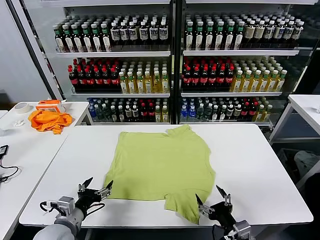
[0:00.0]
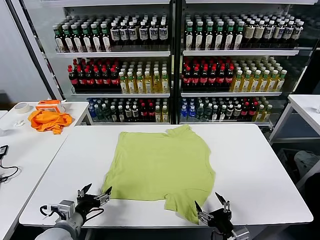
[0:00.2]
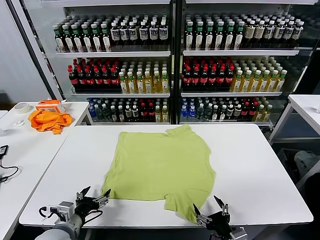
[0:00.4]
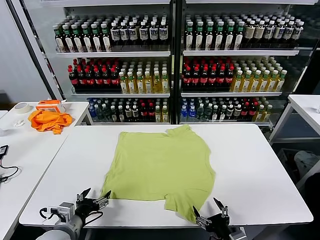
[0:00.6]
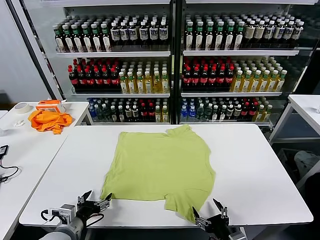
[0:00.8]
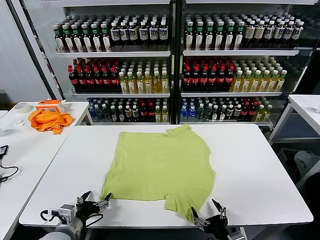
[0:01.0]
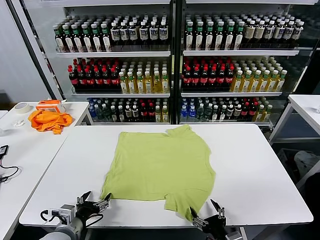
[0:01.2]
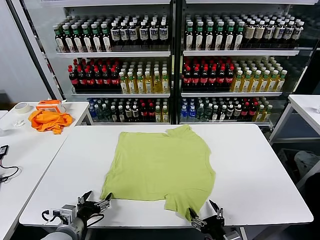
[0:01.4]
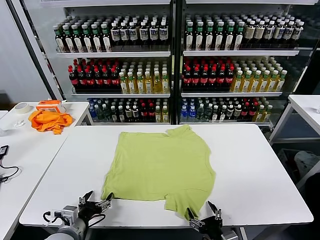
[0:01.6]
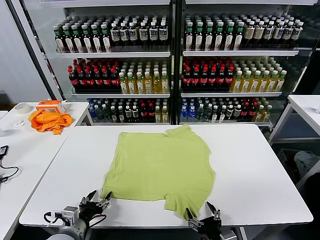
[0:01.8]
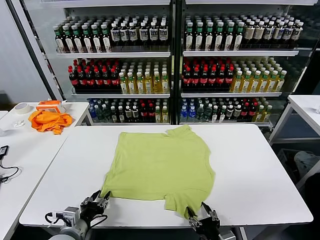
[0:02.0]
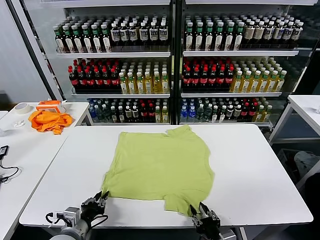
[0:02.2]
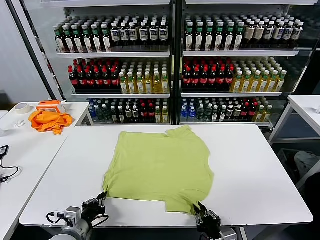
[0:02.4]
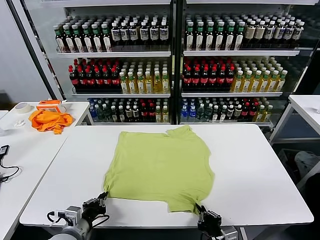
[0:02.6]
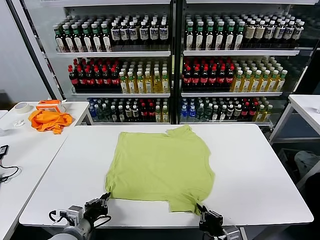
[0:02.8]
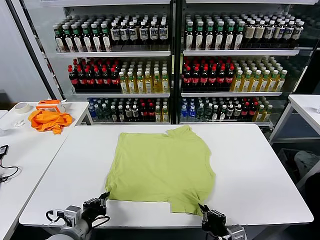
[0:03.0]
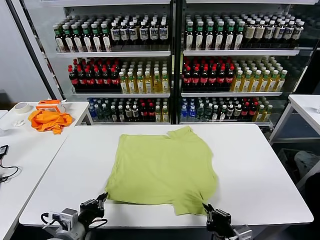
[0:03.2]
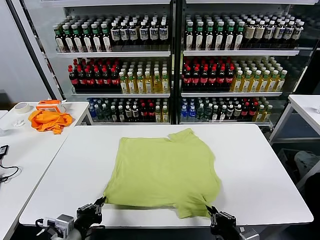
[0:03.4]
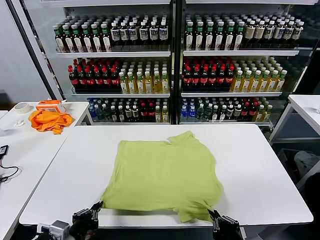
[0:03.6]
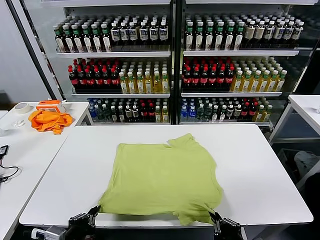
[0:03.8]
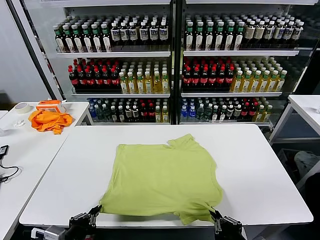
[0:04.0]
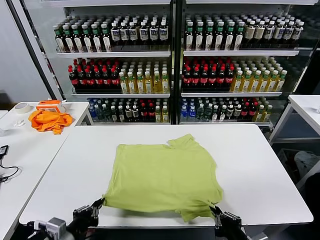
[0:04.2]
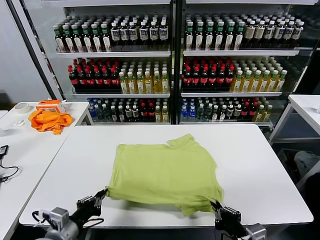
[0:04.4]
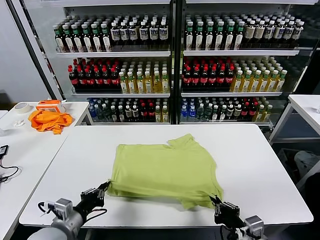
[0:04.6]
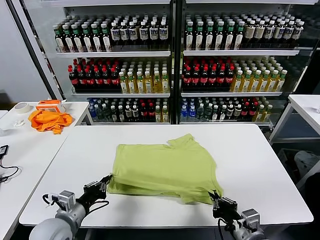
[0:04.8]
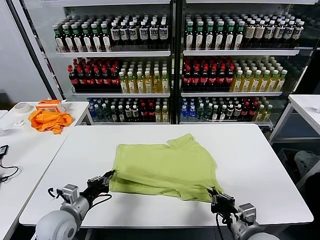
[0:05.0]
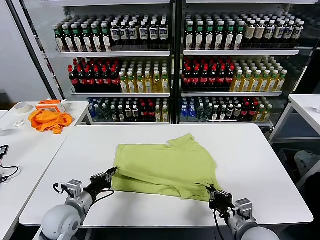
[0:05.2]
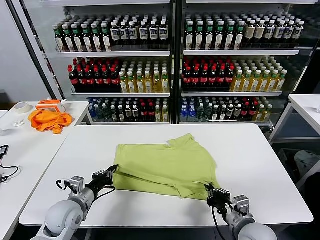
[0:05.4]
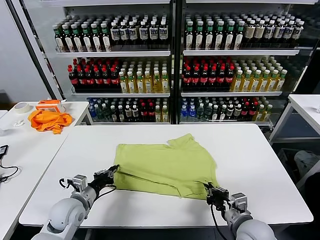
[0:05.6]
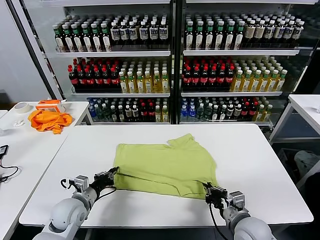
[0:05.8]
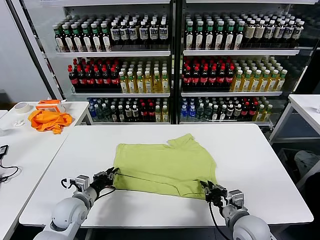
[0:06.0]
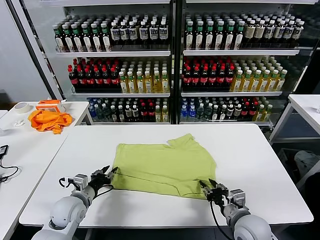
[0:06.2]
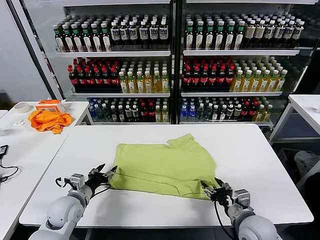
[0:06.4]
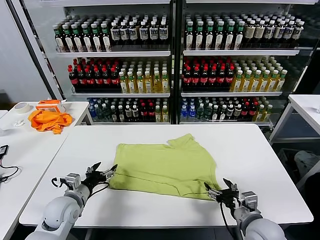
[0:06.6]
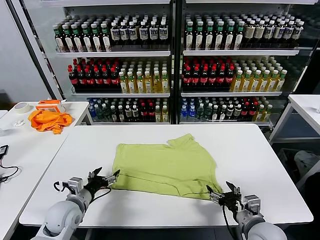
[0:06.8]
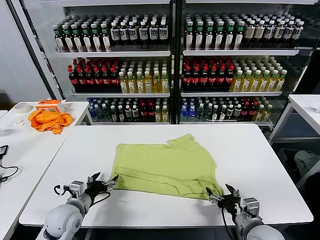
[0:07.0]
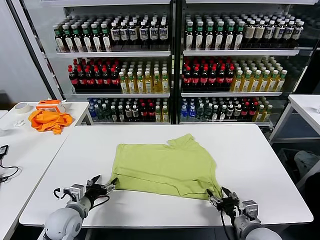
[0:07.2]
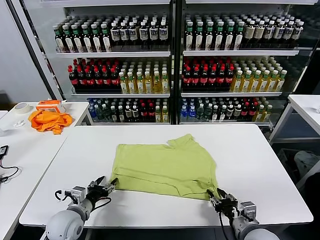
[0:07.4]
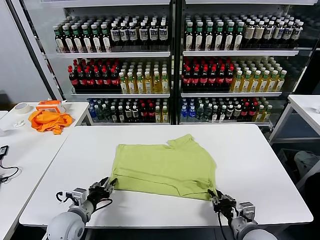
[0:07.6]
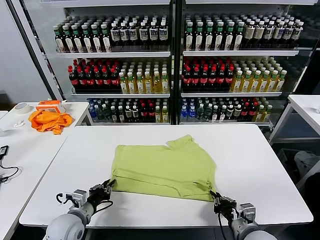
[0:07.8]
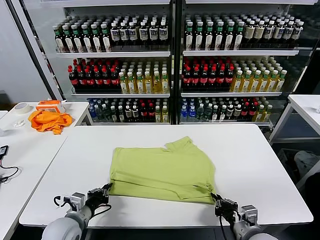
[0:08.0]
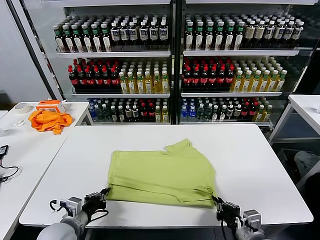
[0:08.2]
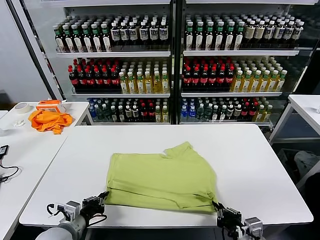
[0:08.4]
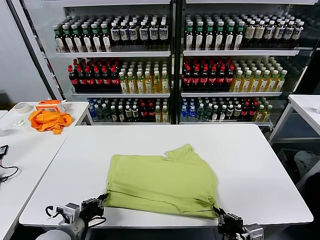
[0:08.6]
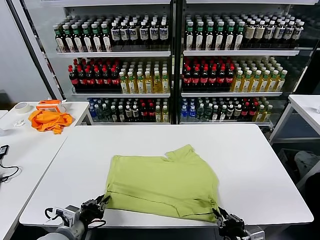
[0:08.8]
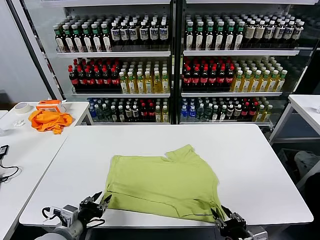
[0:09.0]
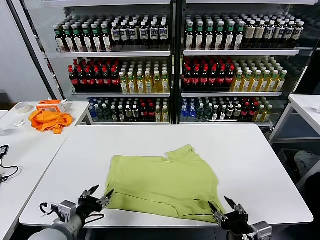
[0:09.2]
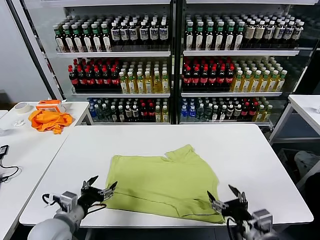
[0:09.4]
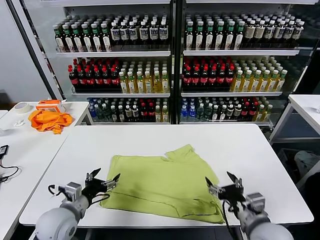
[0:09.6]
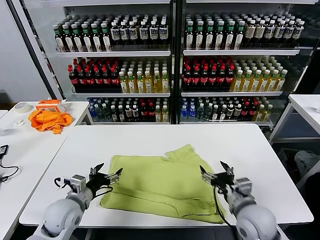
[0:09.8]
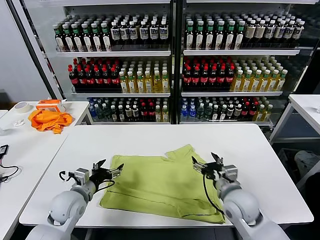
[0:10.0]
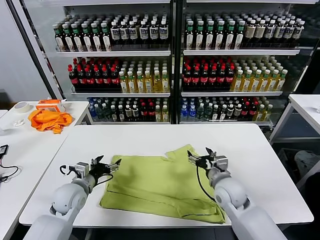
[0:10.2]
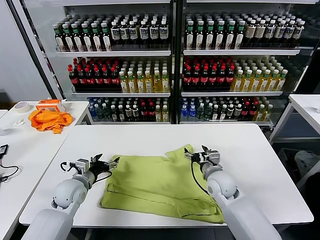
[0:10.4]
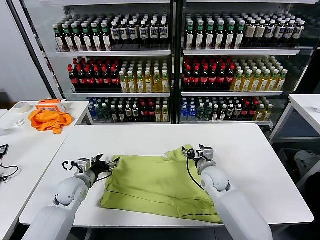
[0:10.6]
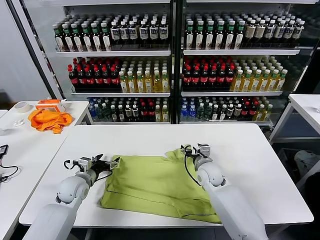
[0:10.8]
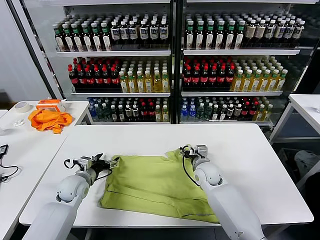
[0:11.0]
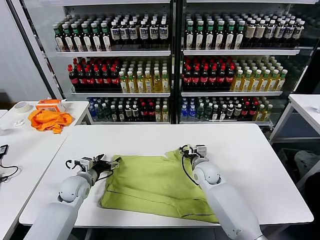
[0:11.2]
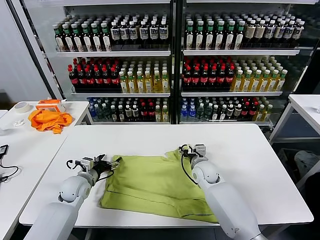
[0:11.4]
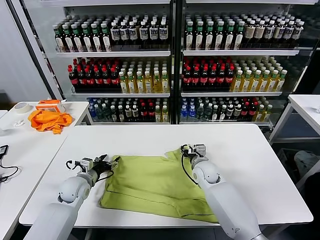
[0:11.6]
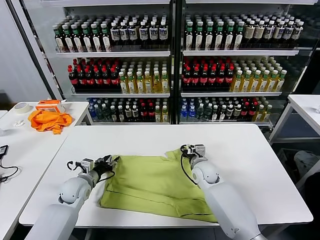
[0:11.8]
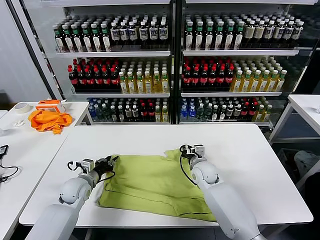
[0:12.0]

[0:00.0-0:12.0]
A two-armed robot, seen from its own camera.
Task of the whole recording: fold and organize the clothes.
Step, 0:00.0 to 0:02.6: use both grippers simultaneously to clamp the lower edge of the clothing fabric.
Step, 0:02.8 to 0:06.2: use both grippers to drag the lower edge of the fabric forward and fold it over the upper edge.
Step, 0:06.6 to 0:09.0: Drag the clothes downward with both gripper.
0:01.6 to 0:03.0: The left gripper closes up; the right gripper moves some 5 cm, and closes its fingers.
0:04.4 to 0:06.0: The right gripper heads forward, covering some 10 cm, and opens, while the left gripper is displaced forward and downward by some 15 cm.
0:06.0 to 0:07.6: The right gripper opens, then closes again. The left gripper opens and closes again.
0:07.6 to 0:09.0: The grippers both shift backward and upward by approximately 10 cm. The right gripper opens up; the left gripper closes, then opens again.
0:09.0 to 0:10.4: The left gripper is displaced forward by about 20 cm, and opens its fingers, while the right gripper heads forward, covering about 30 cm, and opens up.
0:10.4 to 0:12.0: The right gripper moves forward, about 5 cm, and closes. Meanwhile the left gripper closes up.

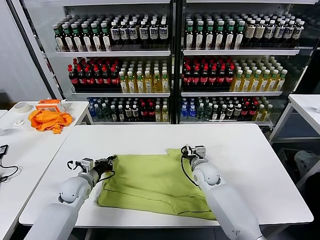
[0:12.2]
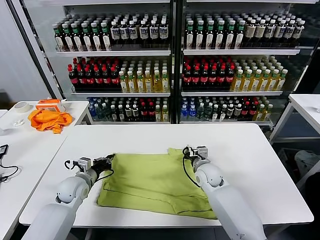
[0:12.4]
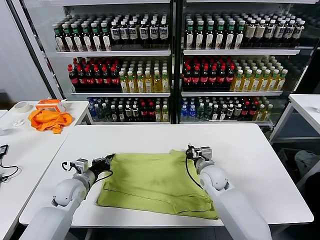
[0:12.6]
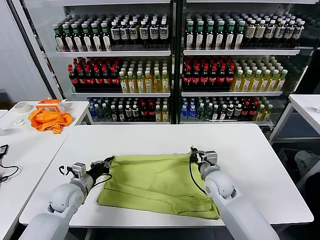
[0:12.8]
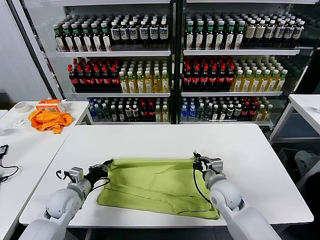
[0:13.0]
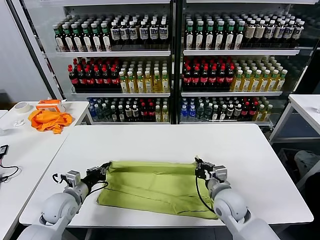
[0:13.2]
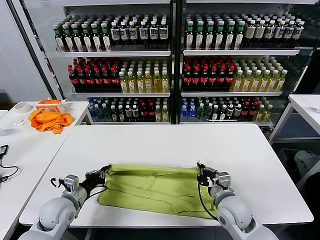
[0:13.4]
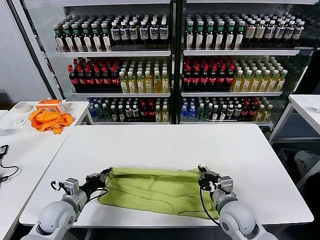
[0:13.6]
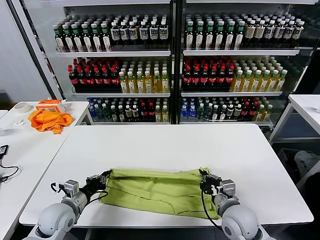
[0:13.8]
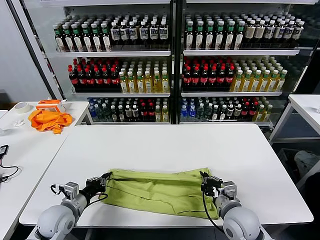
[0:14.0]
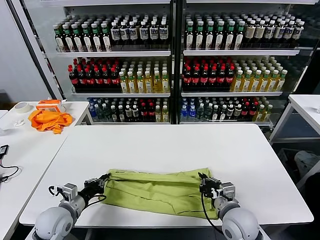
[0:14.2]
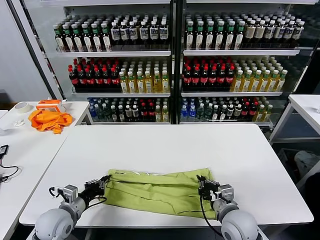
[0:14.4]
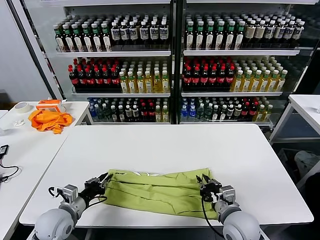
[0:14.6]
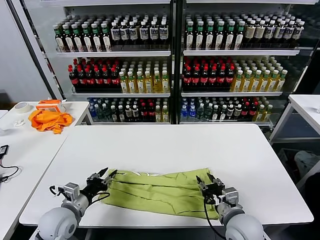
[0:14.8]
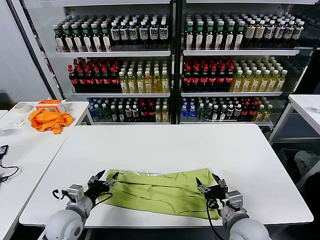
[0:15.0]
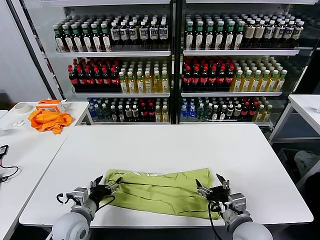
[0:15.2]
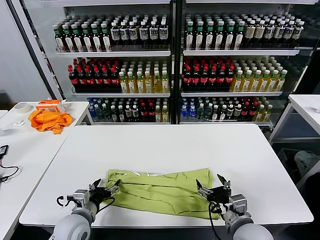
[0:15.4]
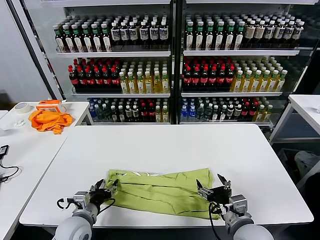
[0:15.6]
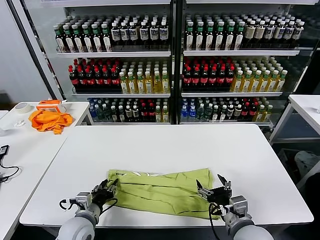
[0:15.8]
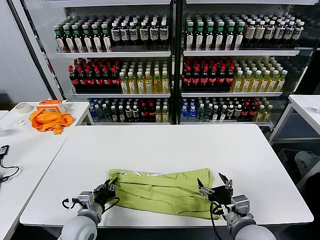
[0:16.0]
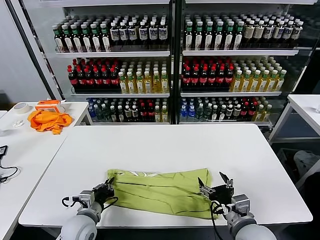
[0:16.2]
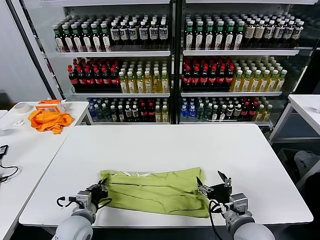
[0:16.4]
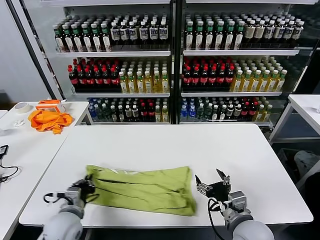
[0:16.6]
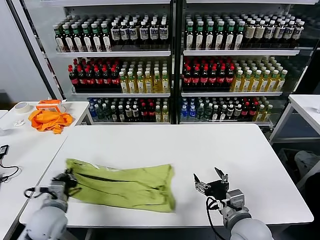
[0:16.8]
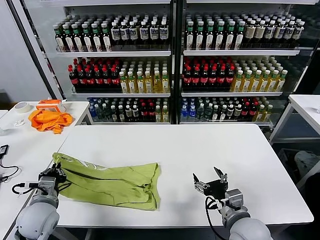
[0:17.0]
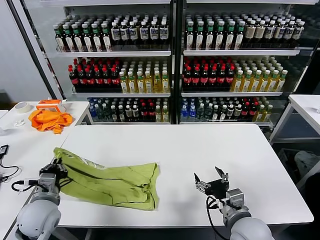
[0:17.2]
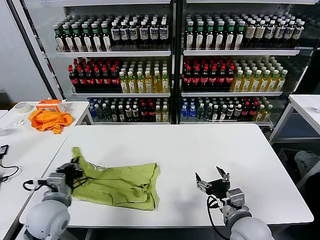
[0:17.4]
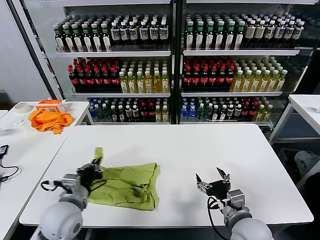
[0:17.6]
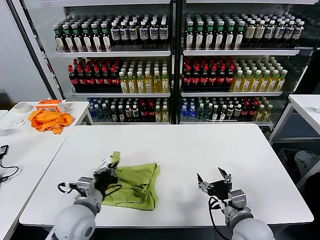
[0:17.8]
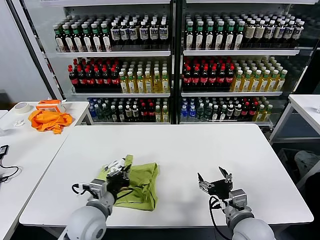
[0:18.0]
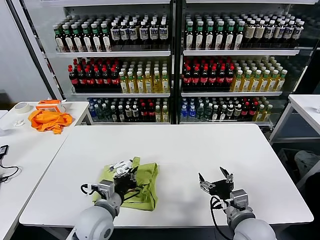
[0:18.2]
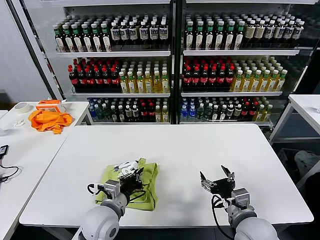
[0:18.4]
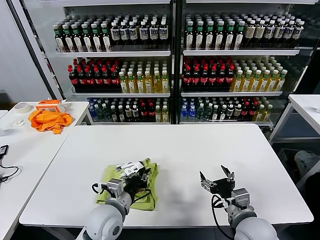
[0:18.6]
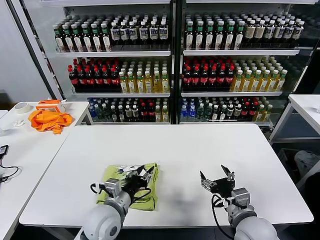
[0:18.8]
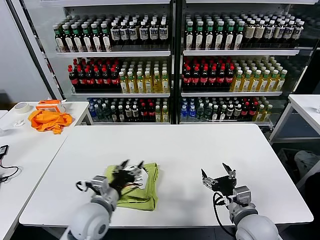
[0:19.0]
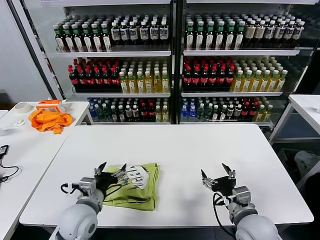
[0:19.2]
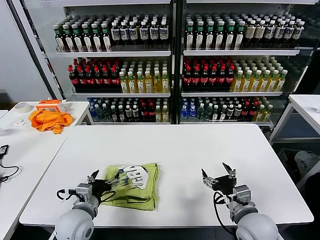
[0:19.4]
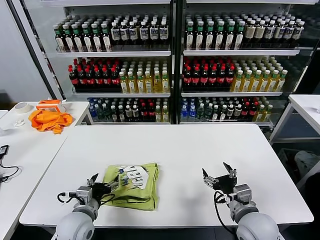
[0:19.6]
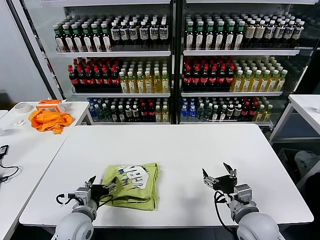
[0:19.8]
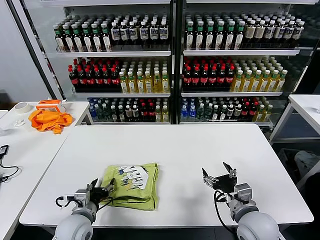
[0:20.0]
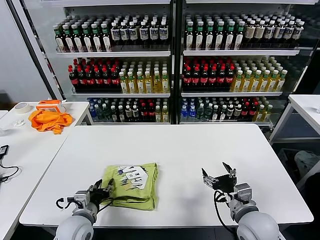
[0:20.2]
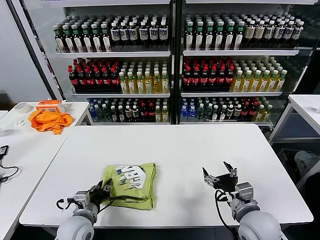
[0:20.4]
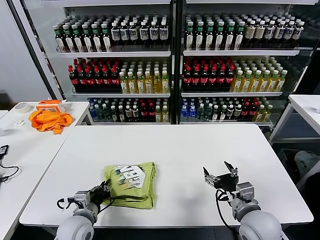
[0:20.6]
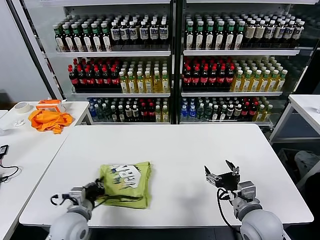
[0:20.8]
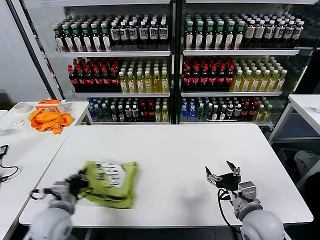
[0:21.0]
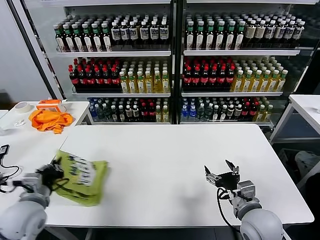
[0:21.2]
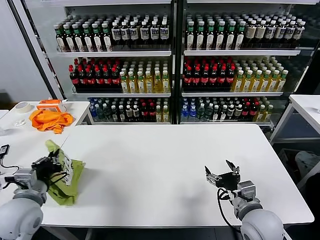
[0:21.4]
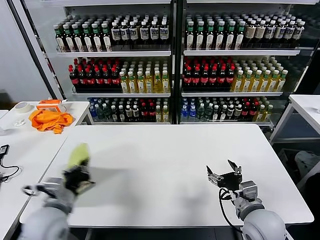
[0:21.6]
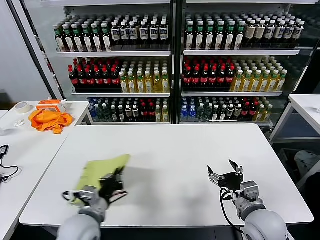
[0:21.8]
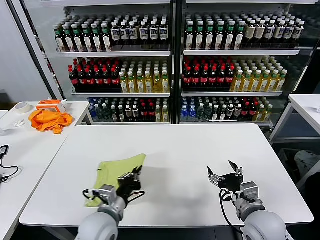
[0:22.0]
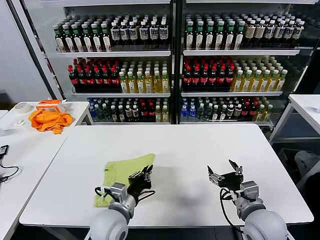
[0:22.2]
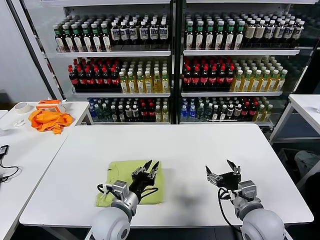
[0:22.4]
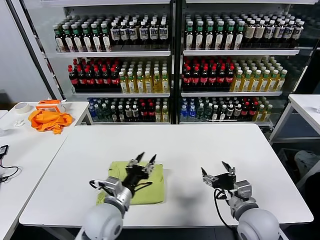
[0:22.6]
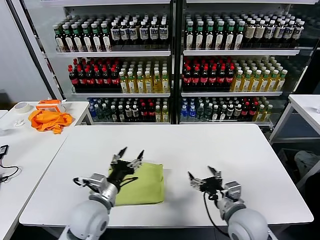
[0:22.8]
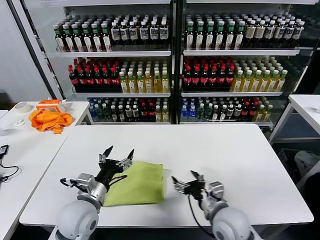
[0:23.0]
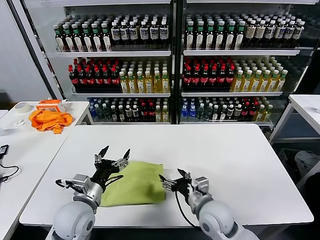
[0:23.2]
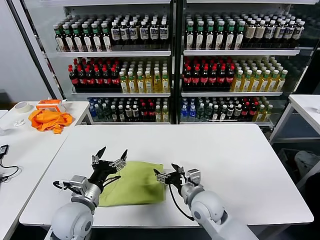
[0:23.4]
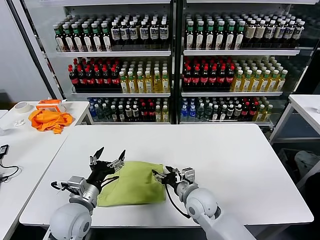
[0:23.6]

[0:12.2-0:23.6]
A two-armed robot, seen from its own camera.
Task of the whole recording: fold and organize the clothes.
Step, 0:12.4 to 0:14.6: use both grippers to drag the upper edge of the fabric backward and fold it over the lower edge.
Step, 0:14.8 to 0:16.2: use the left gripper to clamp the left edge of the fabric.
Step, 0:16.4 to 0:18.6: use the left gripper to drag the left edge of the fabric to the left and folds it over the right edge.
Step, 0:18.8 to 0:22.4: Flip the folded clothes over with left gripper.
0:12.2 to 0:13.6: The right gripper is displaced backward by roughly 20 cm; the left gripper goes roughly 10 cm backward.
0:13.6 to 0:15.0: The right gripper travels backward by some 5 cm, and opens. Meanwhile the left gripper moves some 5 cm, and opens its fingers.
0:15.0 to 0:16.4: The left gripper closes up.
0:16.4 to 0:17.8: The left gripper heads upward, covering some 10 cm, and moves approximately 10 cm to the left and comes back.
0:17.8 to 0:19.4: The left gripper moves approximately 5 cm to the right and comes back, and opens.
0:19.4 to 0:20.8: The left gripper closes.
0:20.8 to 0:22.2: The left gripper is displaced to the right by approximately 10 cm.
0:22.2 to 0:23.6: The left gripper heads to the left, covering about 10 cm, and opens, while the right gripper is displaced to the left, forward and downward by some 20 cm.
